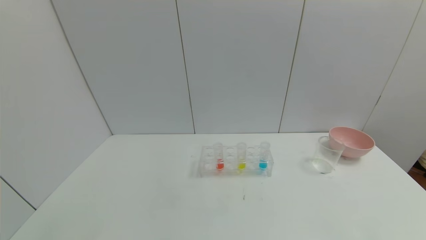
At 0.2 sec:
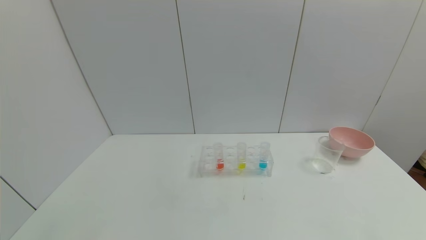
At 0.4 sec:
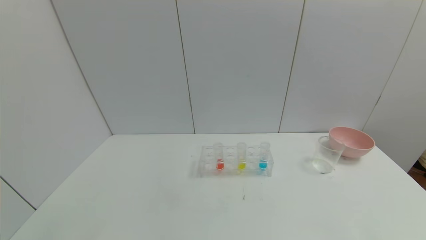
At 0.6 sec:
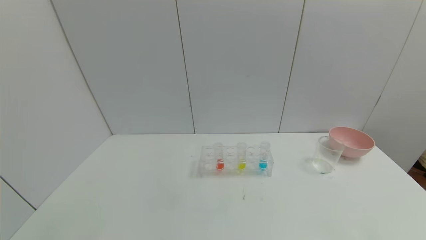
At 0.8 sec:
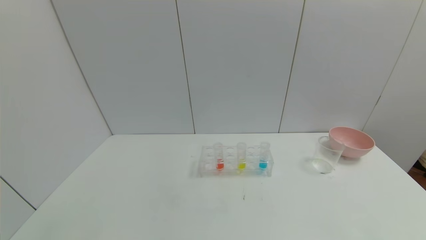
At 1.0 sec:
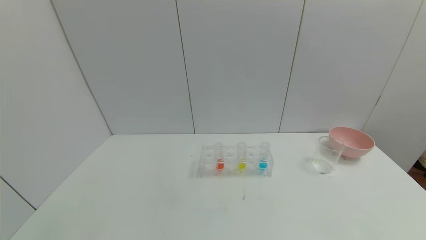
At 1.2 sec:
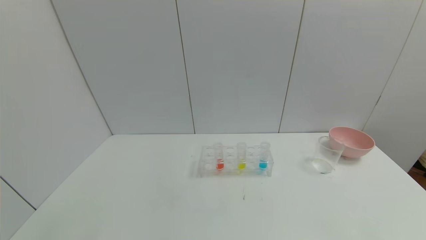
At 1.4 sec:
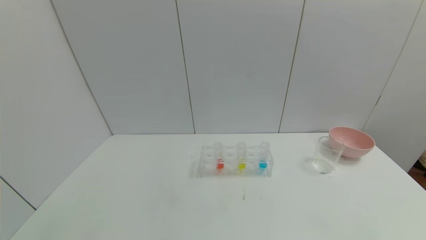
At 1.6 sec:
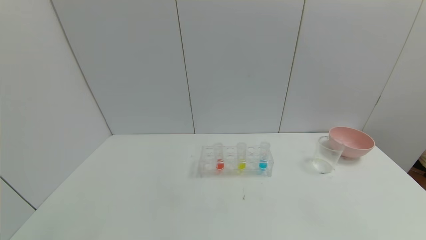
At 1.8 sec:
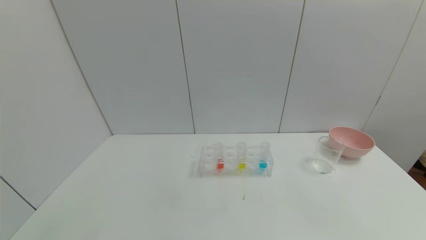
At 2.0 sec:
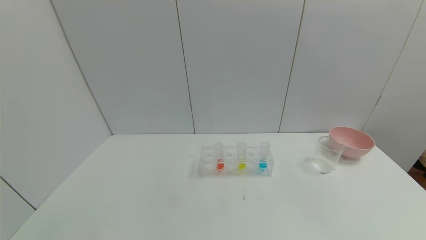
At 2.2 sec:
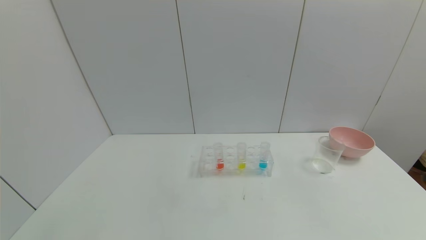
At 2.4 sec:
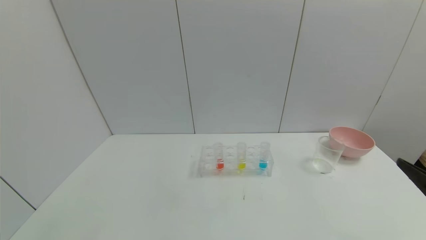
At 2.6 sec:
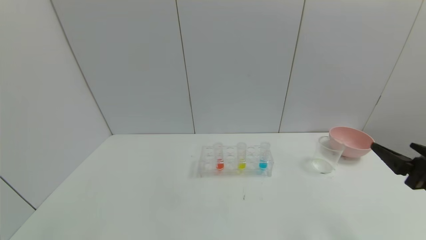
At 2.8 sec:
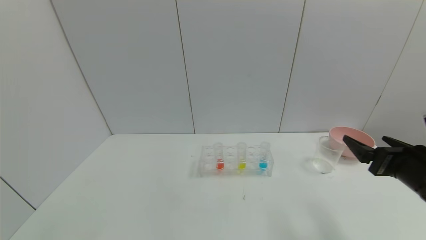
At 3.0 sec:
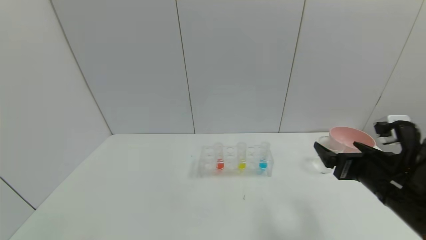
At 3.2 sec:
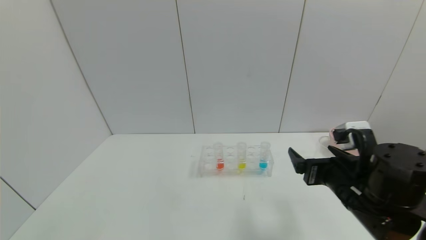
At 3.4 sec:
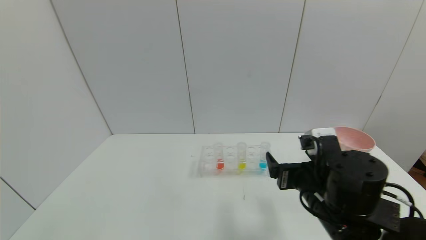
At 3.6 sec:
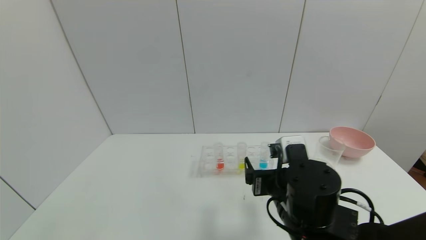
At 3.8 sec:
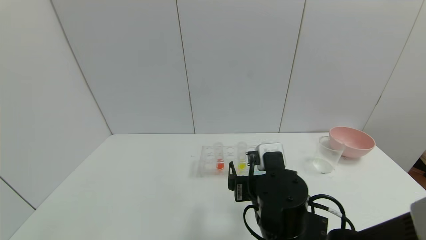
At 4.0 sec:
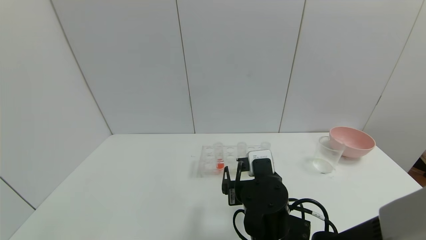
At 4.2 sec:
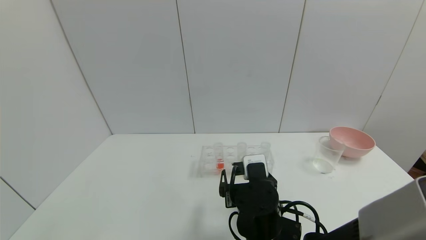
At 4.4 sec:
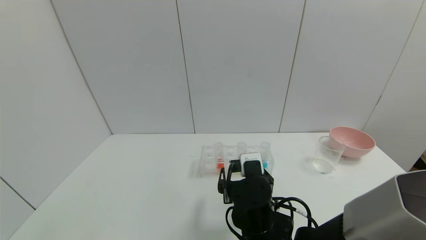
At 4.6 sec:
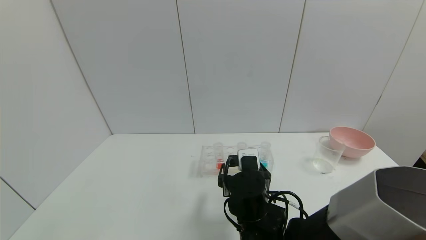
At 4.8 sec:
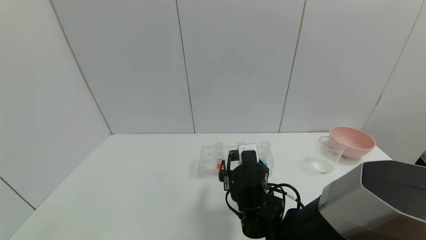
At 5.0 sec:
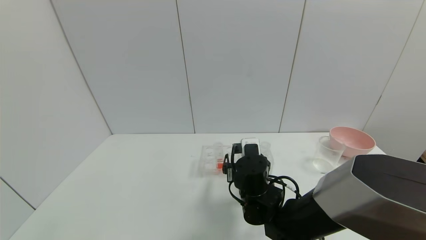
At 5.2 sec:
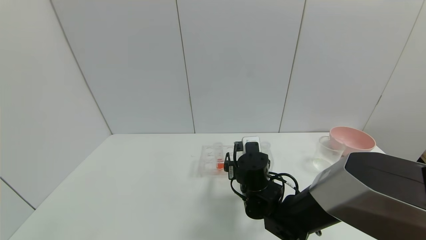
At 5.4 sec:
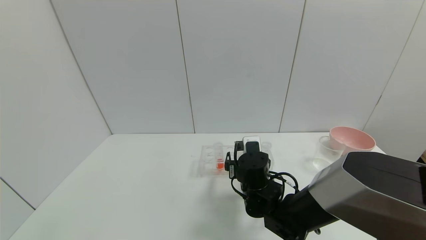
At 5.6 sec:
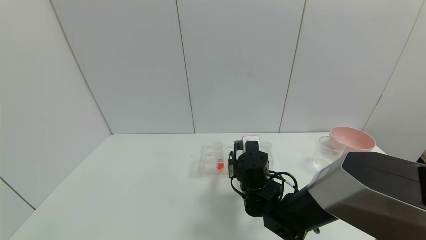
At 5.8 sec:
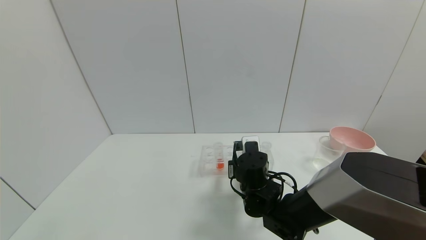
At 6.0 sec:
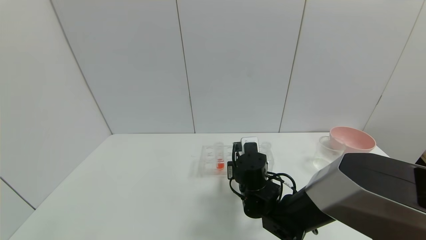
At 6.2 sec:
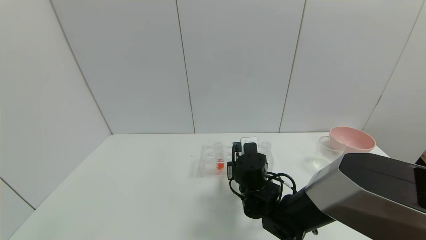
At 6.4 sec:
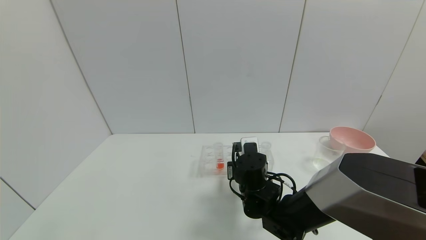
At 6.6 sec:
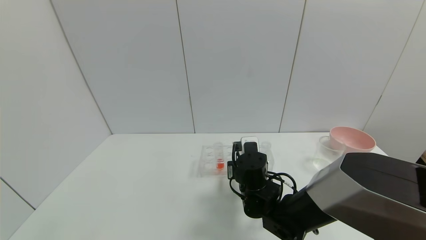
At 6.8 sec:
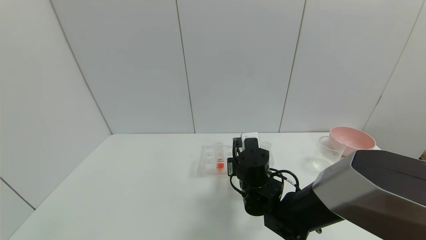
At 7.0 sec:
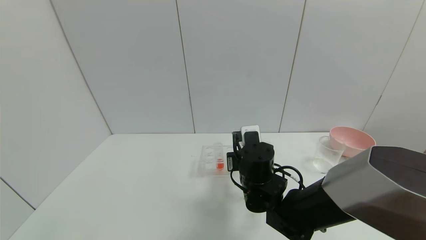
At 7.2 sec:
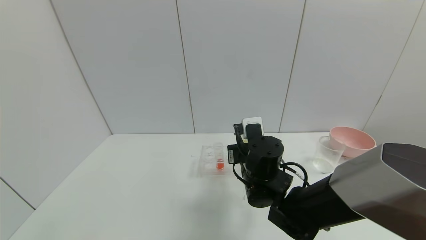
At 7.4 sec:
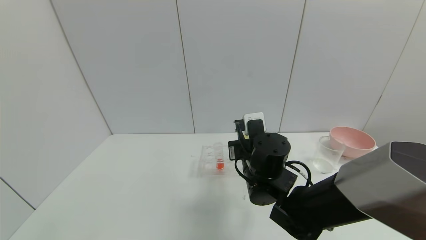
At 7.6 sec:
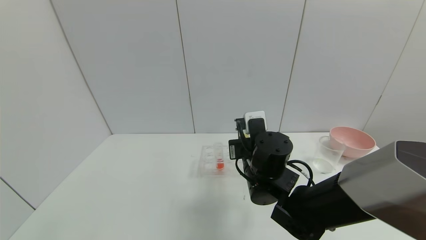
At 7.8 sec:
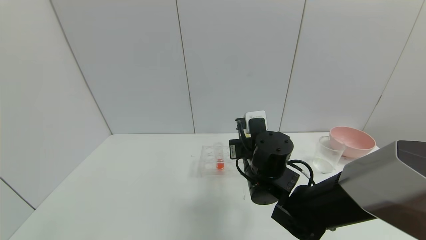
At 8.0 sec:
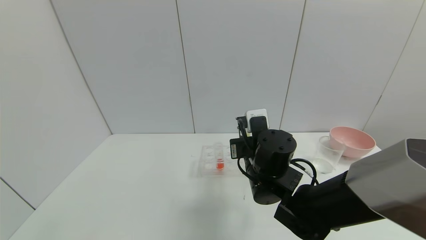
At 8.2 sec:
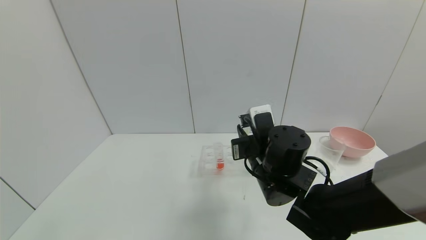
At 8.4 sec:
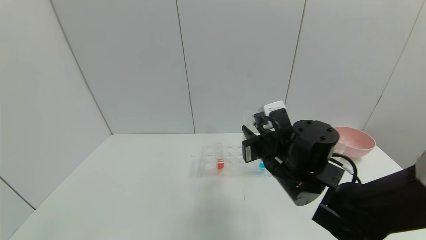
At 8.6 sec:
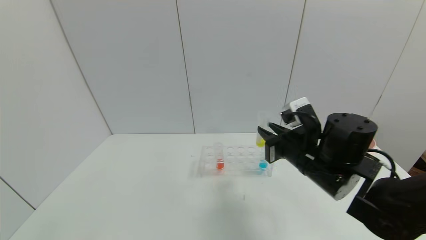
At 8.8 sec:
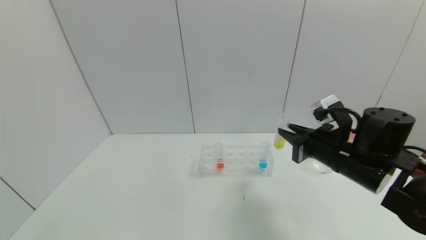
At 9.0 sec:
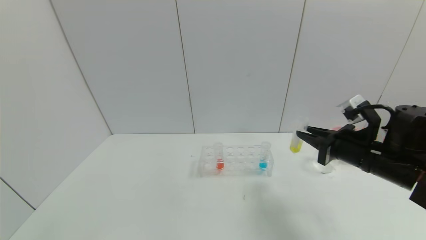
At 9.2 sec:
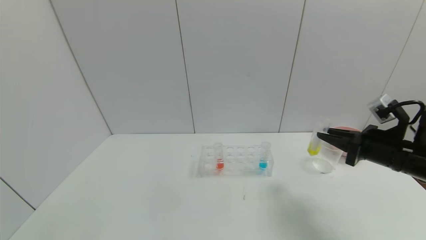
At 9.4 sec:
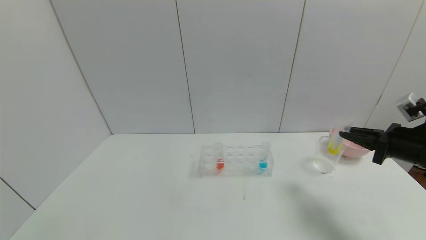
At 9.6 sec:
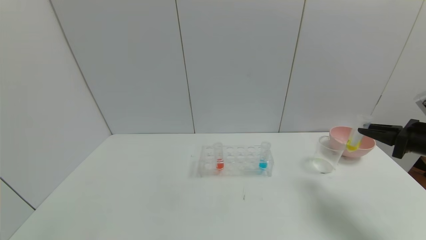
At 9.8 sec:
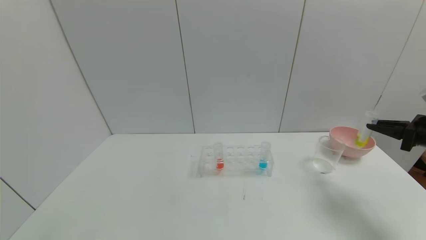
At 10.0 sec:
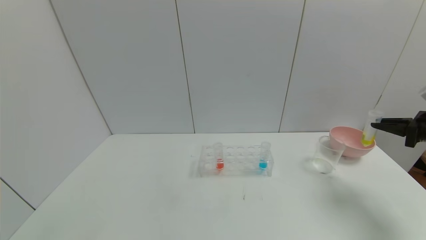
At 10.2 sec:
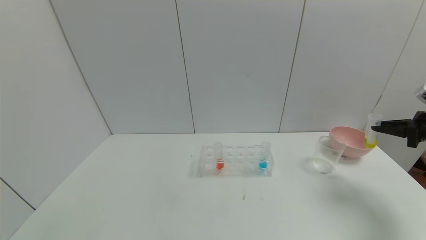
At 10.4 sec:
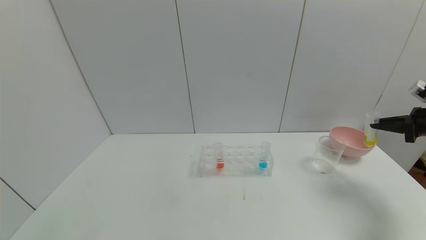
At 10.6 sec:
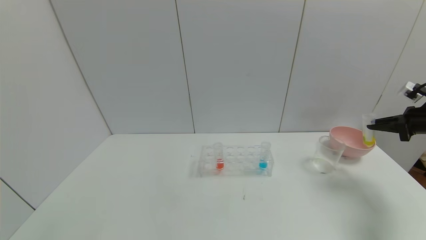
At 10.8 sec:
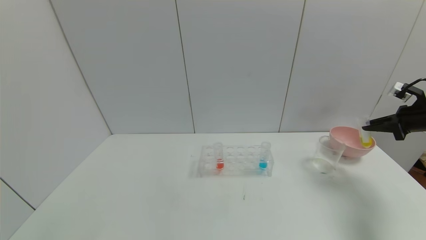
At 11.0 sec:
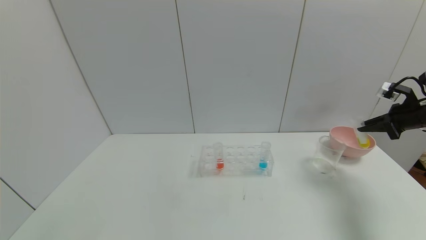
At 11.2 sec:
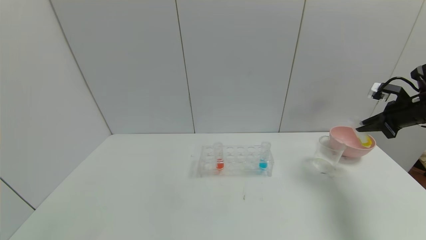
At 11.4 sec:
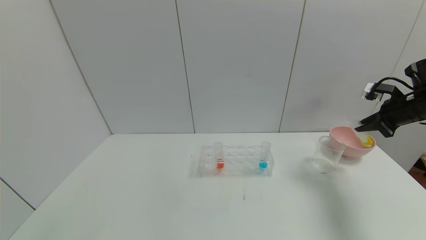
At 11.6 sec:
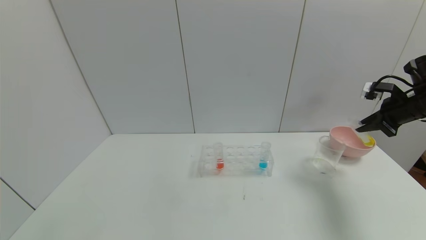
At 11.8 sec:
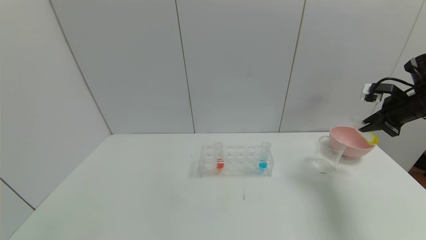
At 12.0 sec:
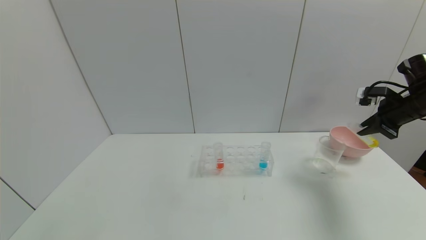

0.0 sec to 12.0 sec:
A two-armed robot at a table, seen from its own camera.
Task of the whole recording: pick up the test tube with yellow pigment and the test tube with blue pigment by grippers and pour them into the beaker.
Step, 0.0 sec to 9.0 sec: Pick up the test tube containing the yellow reagent with right gripper.
1.6 sec to 3.0 sec: The right gripper shifts about 25 cm forward and to the left.
3.0 sec to 4.4 sec: The right gripper is displaced to the left by approximately 20 cm.
4.4 sec to 6.0 sec: The right gripper travels forward by approximately 10 cm, and closes.
6.0 sec to 7.6 sec: The right gripper shifts about 5 cm upward.
7.6 sec to 9.0 sec: The right gripper travels to the right by some 20 cm.
9.0 sec to 10.4 sec: The right gripper shifts approximately 20 cm to the right.
10.4 sec to 12.0 sec: The right gripper travels to the left by approximately 10 cm.

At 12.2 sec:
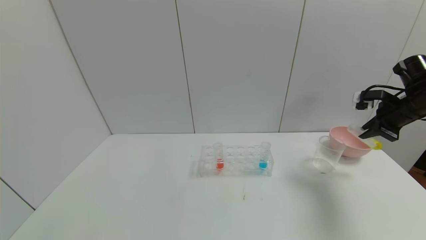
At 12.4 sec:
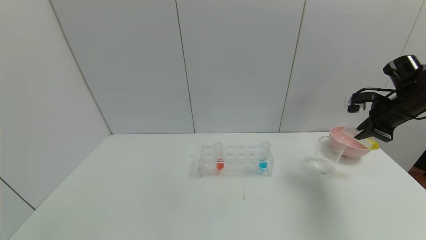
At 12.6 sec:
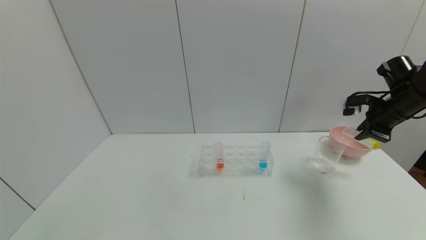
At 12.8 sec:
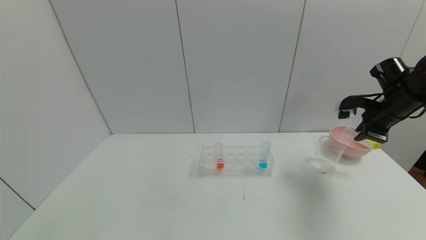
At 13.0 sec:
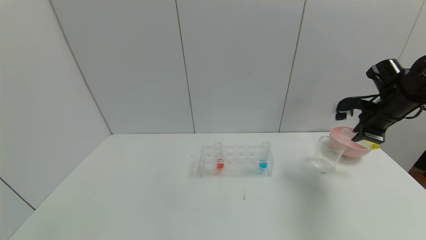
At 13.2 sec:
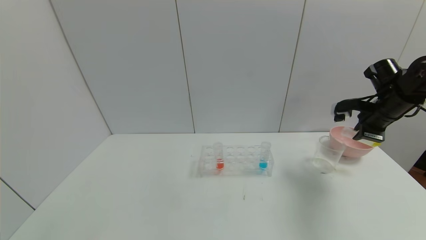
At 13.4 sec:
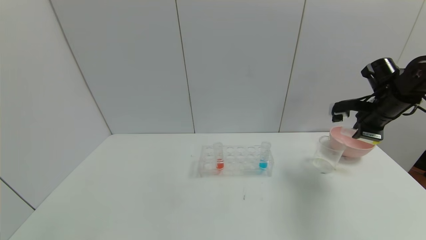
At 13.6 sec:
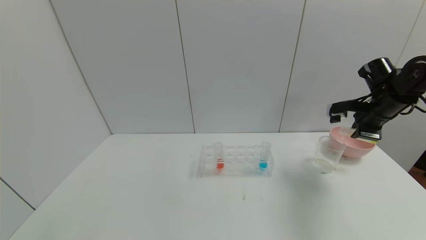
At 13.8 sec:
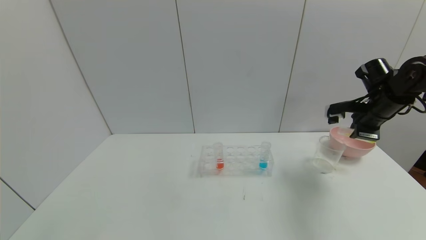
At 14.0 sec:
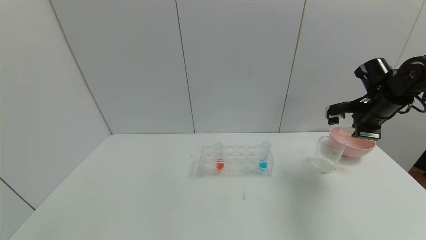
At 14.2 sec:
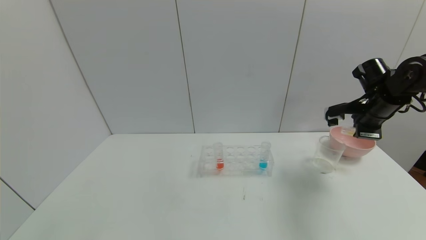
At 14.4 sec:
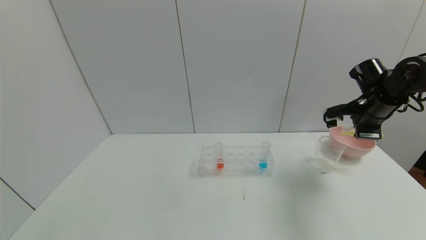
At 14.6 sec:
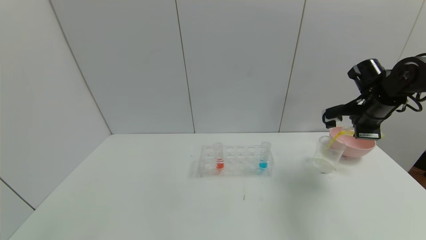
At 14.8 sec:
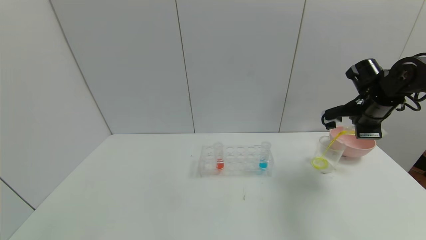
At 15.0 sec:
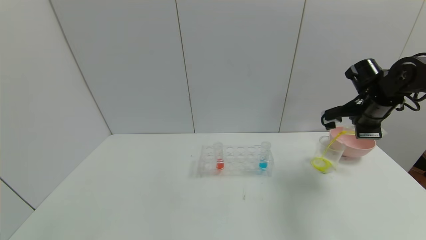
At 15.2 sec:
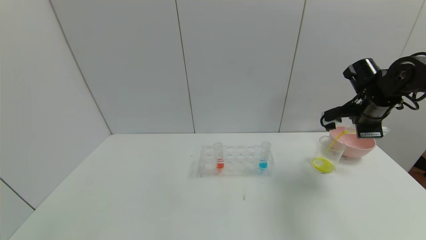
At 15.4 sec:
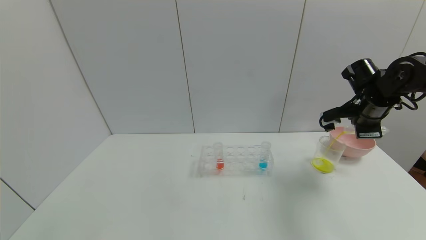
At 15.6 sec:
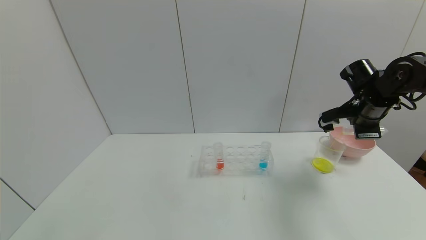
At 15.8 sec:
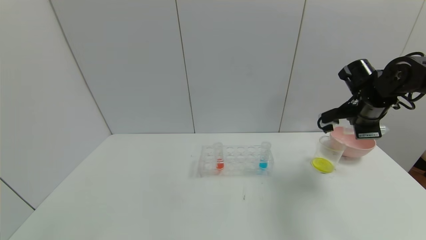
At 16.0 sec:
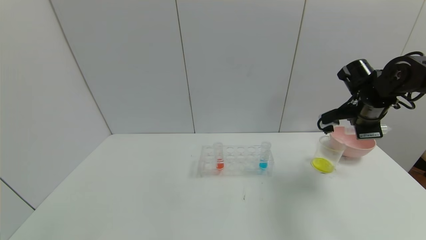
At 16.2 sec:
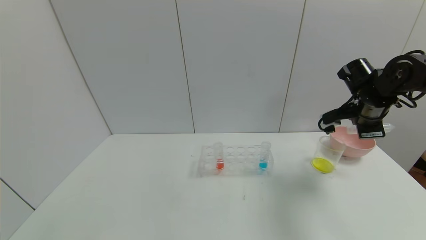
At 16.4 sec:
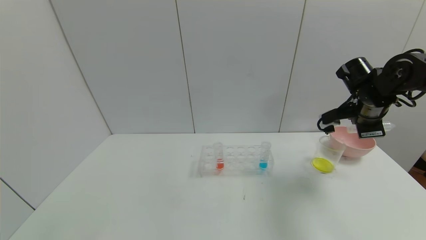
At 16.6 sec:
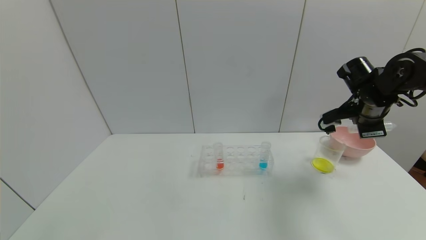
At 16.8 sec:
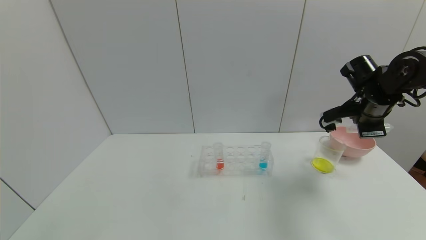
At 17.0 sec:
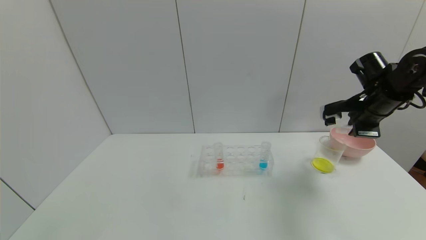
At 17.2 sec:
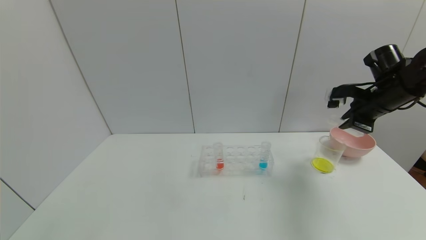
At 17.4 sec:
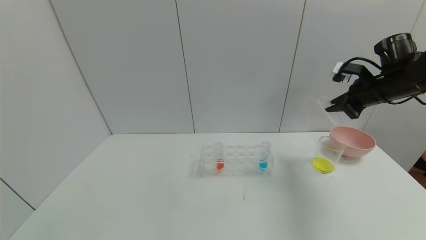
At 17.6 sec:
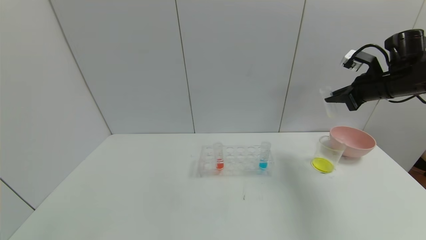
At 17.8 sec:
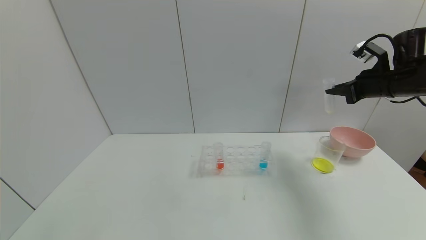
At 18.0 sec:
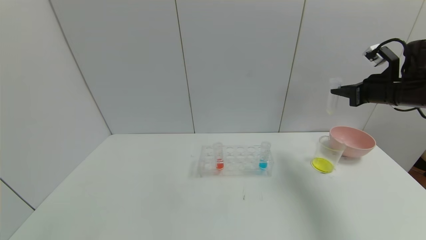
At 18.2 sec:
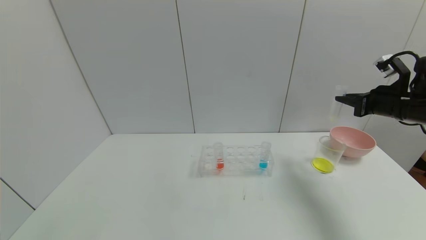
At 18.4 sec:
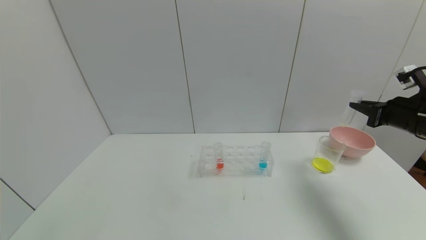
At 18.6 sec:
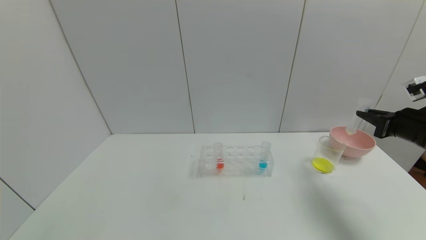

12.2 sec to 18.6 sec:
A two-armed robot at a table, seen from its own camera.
Task of the whole recording: pick up the test tube with yellow pigment and the test tube with blue pigment by grippers and pour them into the beaker.
12.2 sec to 13.8 sec: The right gripper moves to the left, some 5 cm.
13.8 sec to 15.4 sec: The grippers make only small movements.
15.4 sec to 17.0 sec: The grippers move only a little.
17.0 sec to 18.6 sec: The right gripper heads backward and to the right, covering roughly 10 cm.
